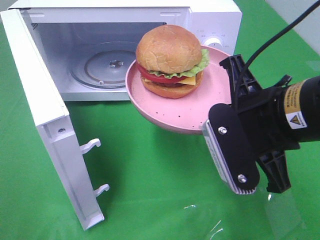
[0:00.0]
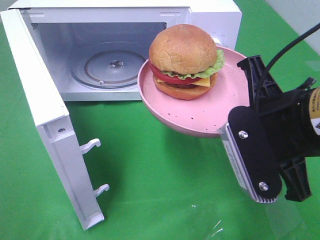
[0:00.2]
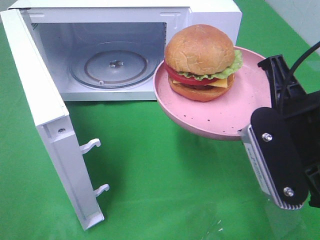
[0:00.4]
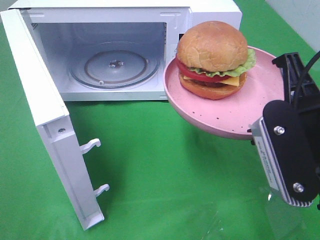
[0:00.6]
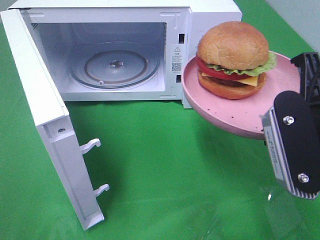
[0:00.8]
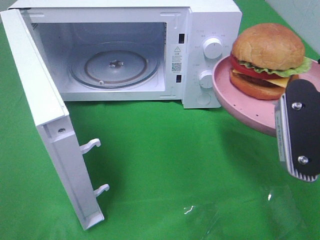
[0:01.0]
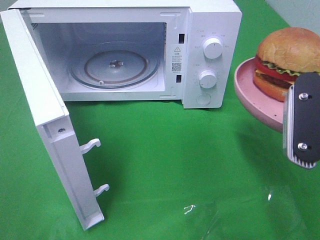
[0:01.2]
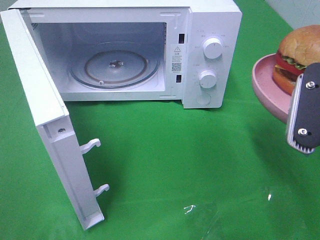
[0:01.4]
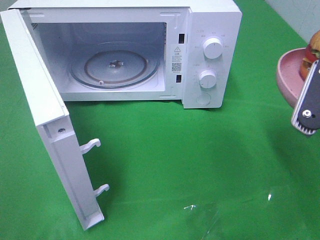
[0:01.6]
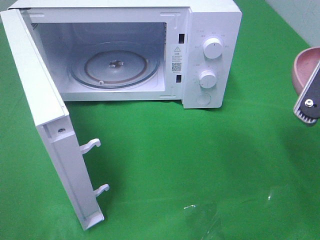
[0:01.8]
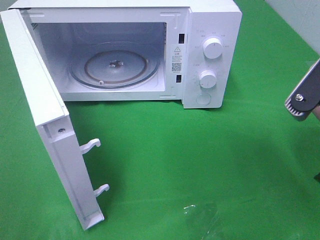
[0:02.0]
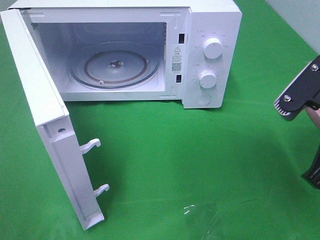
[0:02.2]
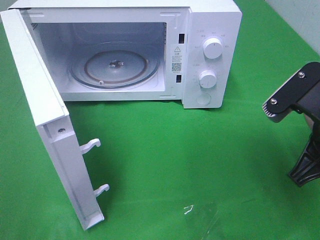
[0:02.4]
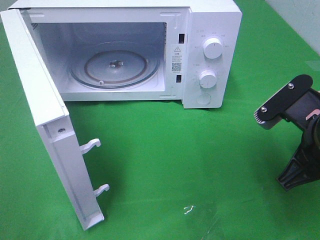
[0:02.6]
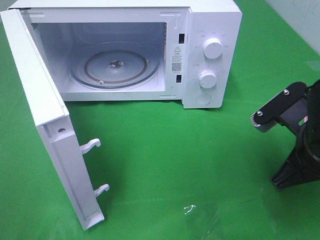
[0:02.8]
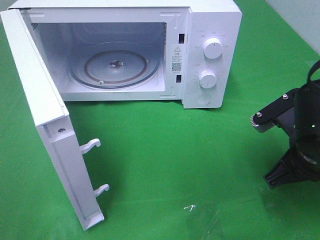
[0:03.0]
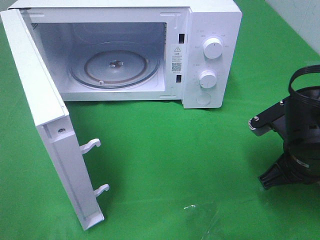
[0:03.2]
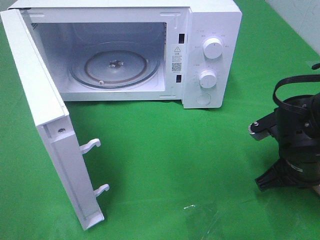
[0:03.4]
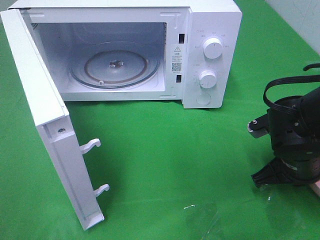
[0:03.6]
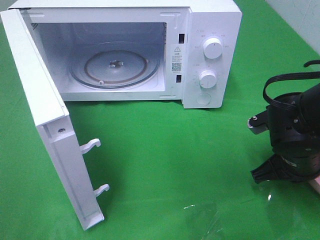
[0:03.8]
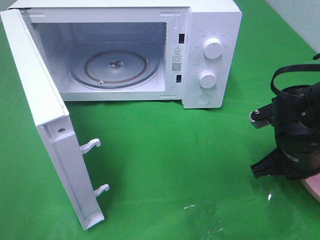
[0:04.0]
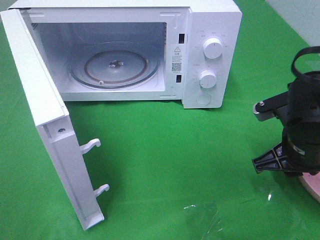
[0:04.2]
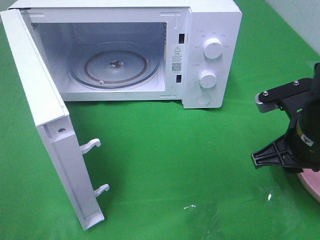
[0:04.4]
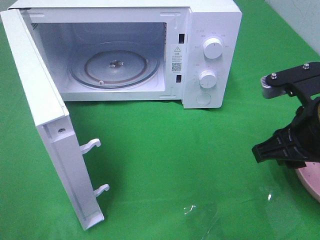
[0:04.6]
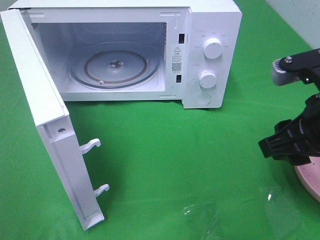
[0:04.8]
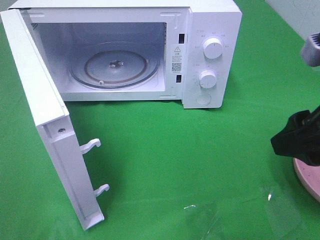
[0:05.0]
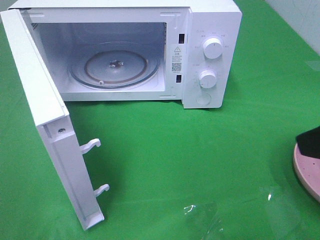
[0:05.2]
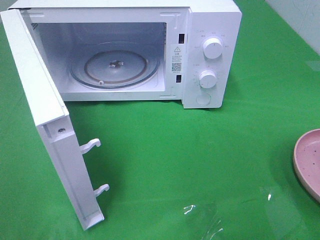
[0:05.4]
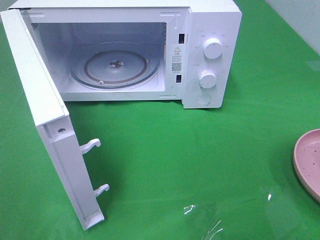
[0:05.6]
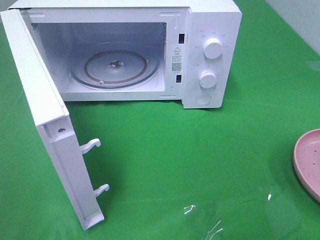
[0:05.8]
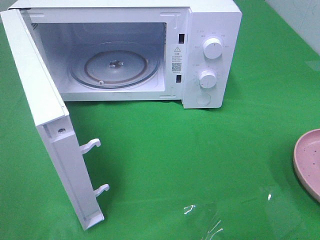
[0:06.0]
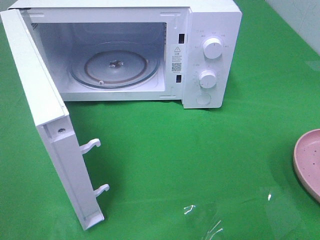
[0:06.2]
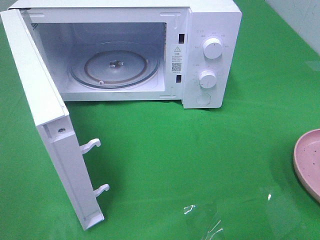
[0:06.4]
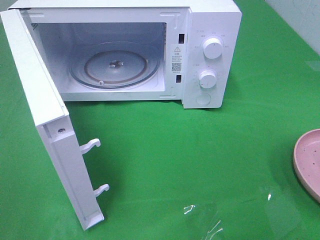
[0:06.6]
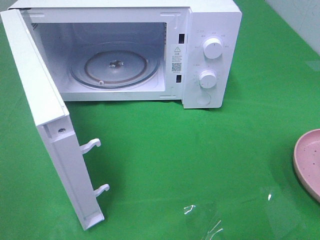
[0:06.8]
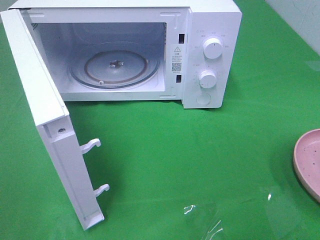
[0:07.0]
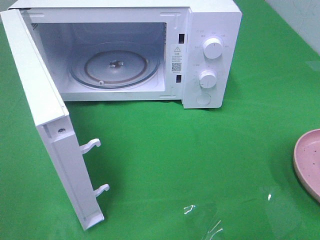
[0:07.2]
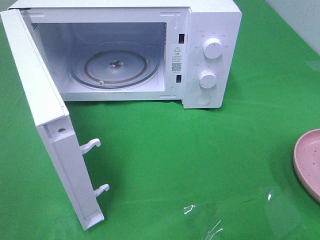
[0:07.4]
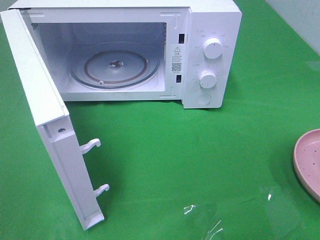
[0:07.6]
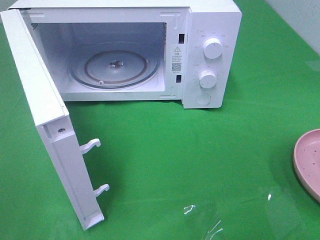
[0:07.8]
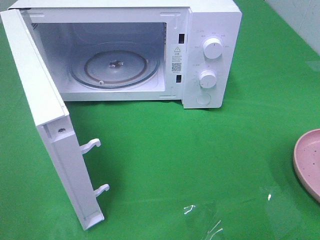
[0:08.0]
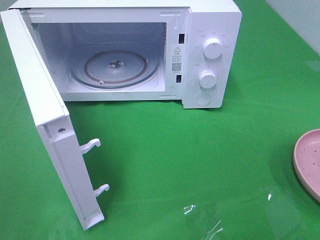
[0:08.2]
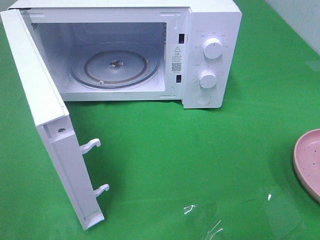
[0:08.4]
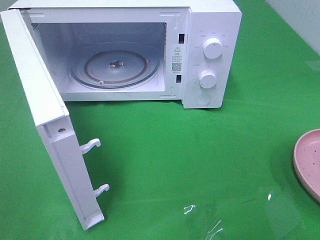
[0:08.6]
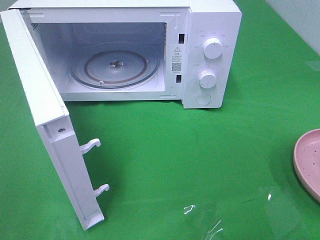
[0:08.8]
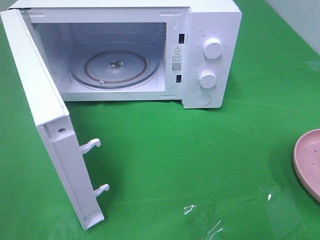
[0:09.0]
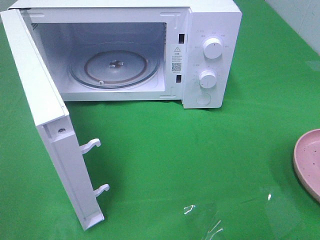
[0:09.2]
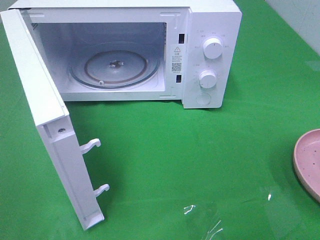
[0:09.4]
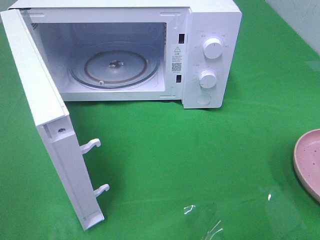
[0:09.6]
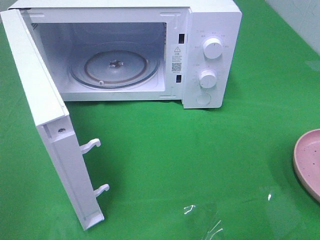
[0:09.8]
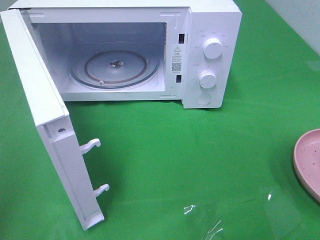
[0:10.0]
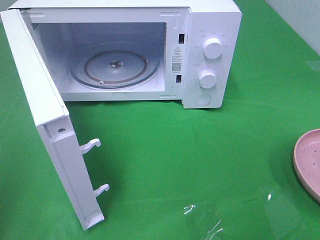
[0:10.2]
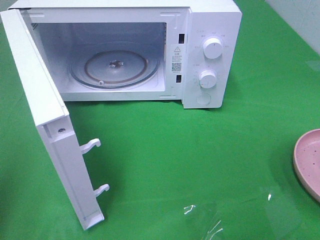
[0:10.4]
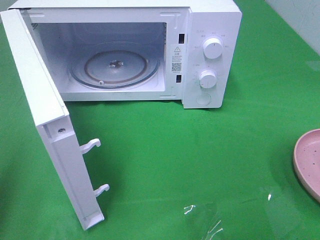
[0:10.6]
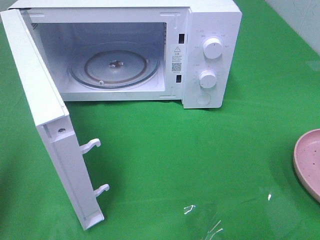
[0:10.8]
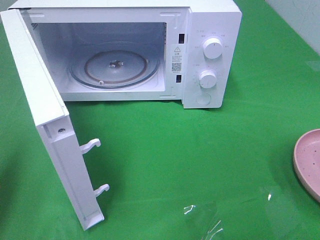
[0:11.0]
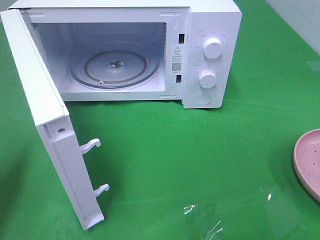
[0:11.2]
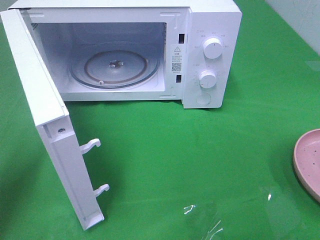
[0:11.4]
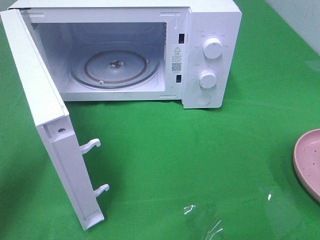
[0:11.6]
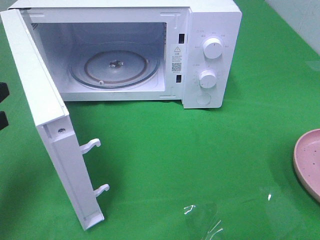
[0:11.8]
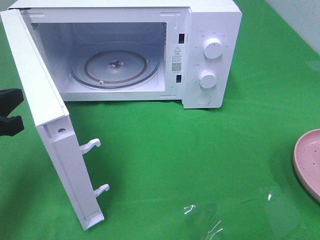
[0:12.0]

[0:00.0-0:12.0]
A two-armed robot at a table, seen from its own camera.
Task of the whole recording: Heat the burger.
Step, 0:00.0 to 0:04.6: Right hand: place the plate on the table.
0:00.0 to 0:01.6: The right gripper travels to the right by approximately 10 cm.
0:01.6 to 0:03.0: The right gripper is displaced downward and forward by approximately 10 cm.
0:03.0 to 0:04.4: The right gripper opens.
0:04.4 to 0:06.0: The right gripper shifts about 25 cm backward, upward and to the right.
0:07.6 to 0:09.0: Both grippers stay about where they are.
0:10.4 to 0:12.0: The left gripper is displaced forward, downward and to the right by approximately 15 cm.

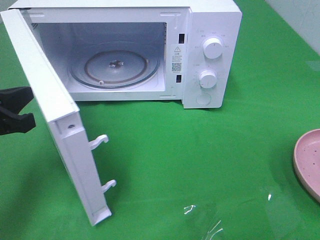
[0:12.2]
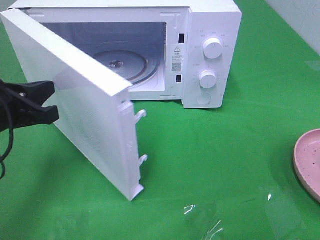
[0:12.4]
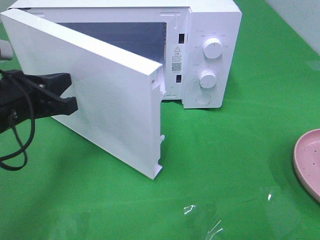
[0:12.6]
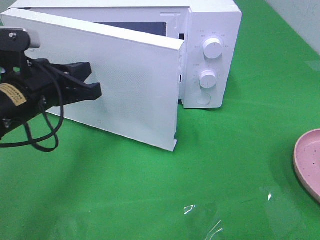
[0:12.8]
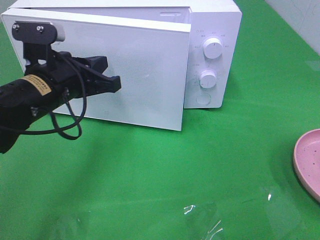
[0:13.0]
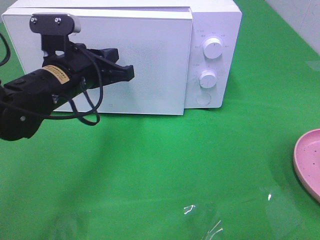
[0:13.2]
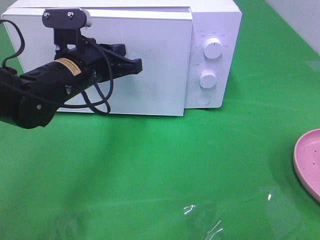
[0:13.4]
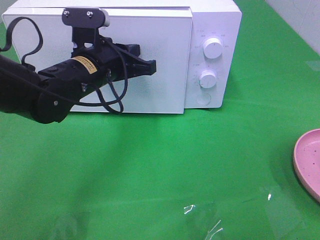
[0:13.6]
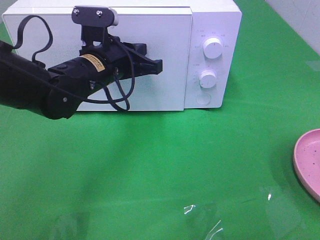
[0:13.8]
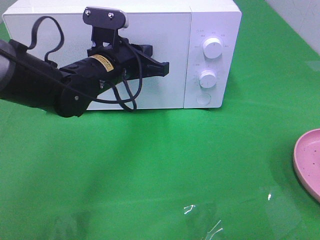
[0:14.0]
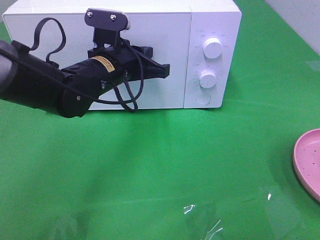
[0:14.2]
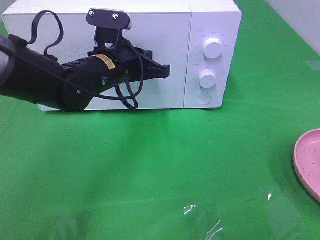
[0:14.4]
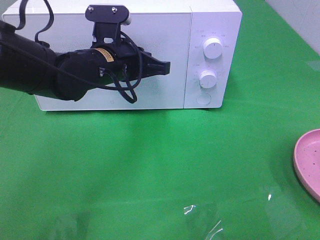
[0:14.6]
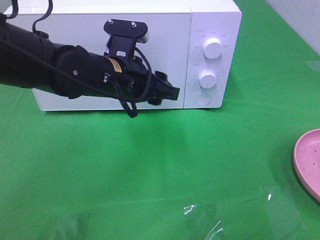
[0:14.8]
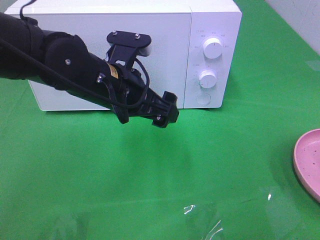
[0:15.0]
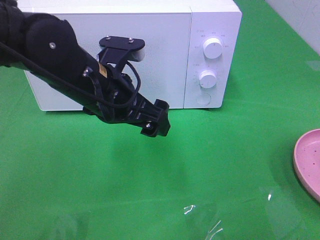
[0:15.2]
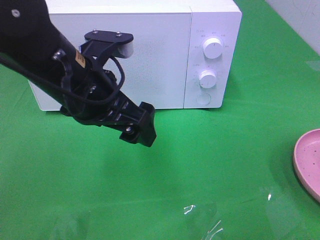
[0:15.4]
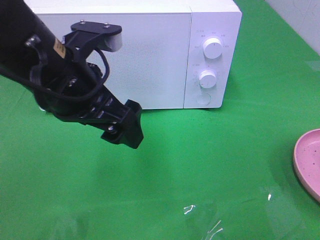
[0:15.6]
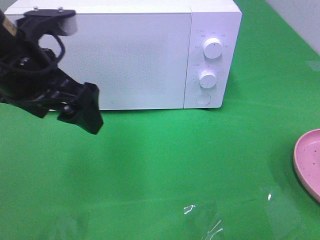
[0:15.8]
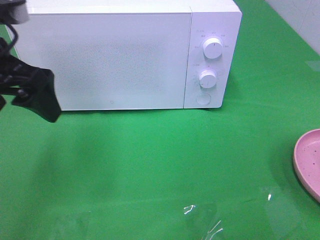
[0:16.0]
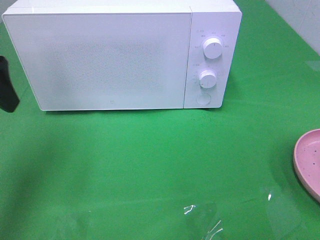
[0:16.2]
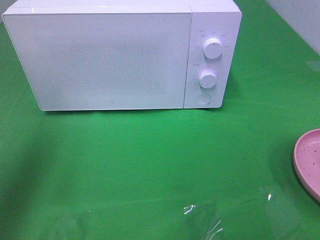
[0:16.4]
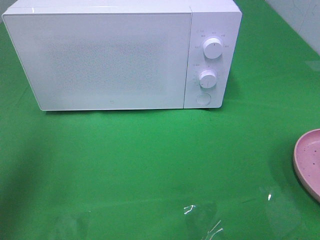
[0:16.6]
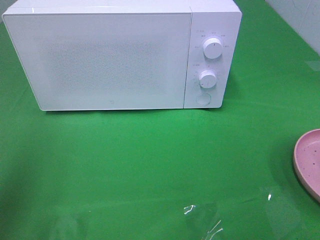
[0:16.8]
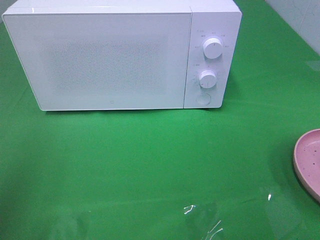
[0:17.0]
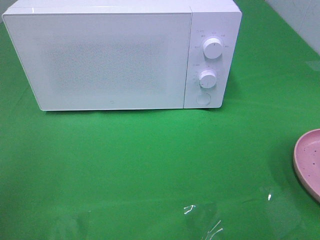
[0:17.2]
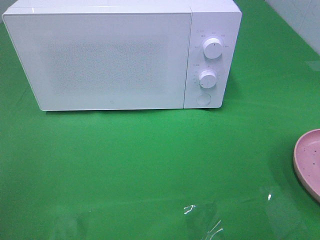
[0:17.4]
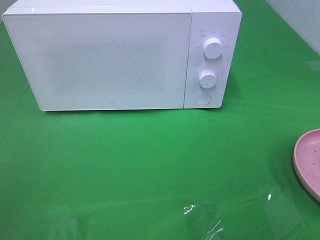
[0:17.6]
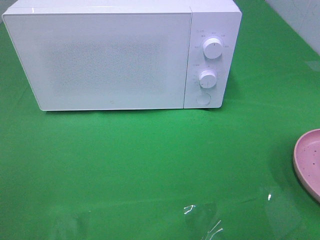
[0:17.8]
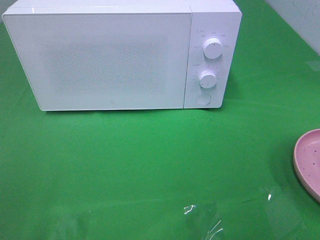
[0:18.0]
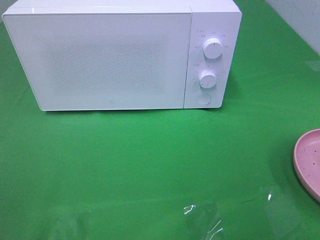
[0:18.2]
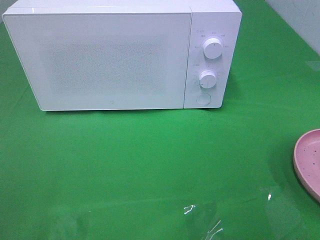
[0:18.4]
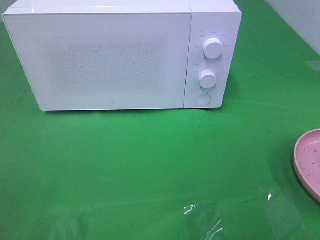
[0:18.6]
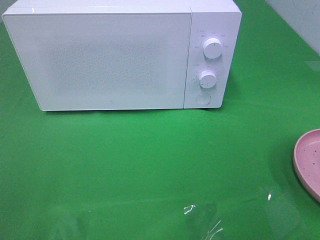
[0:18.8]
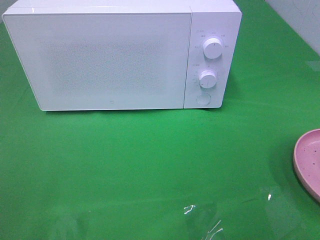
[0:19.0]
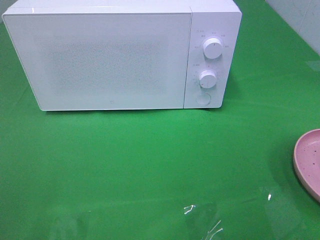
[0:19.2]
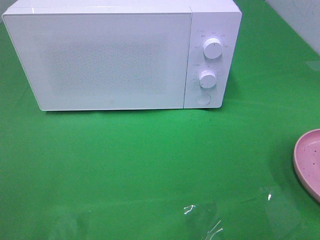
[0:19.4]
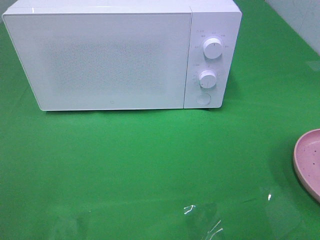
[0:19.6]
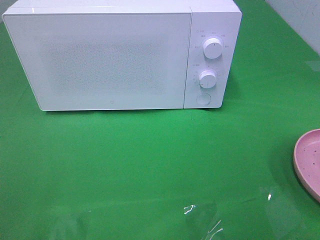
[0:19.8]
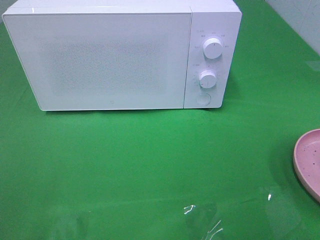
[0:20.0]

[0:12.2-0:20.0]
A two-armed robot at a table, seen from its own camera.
Task of the whole recording: Heat the burger.
Step, 0:12.2 to 0:14.8: Left hand: close the microwave door.
0:12.2 to 0:13.8: The left gripper is displaced to the right and forward by approximately 20 cm.
0:13.8 to 0:15.4: The left gripper travels backward and upward by some 10 cm, and opens up.
0:15.4 to 0:16.8: The left gripper shifts about 20 cm to the left and backward.
0:16.8 to 0:18.4: The left gripper travels backward by roughly 15 cm.
0:18.4 to 0:20.0: Neither gripper changes place.

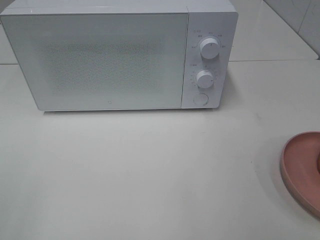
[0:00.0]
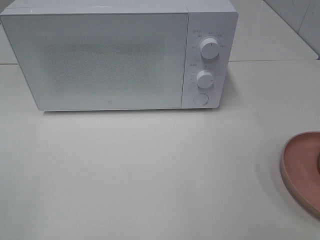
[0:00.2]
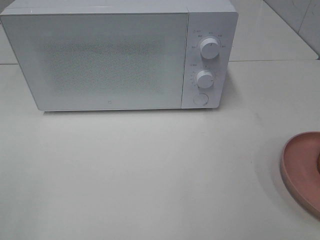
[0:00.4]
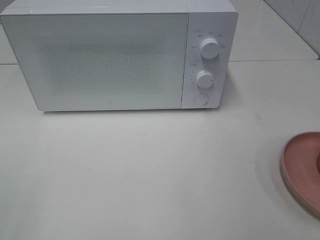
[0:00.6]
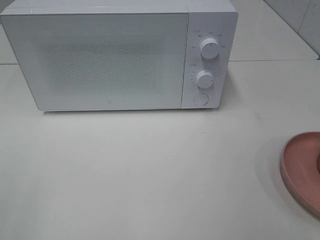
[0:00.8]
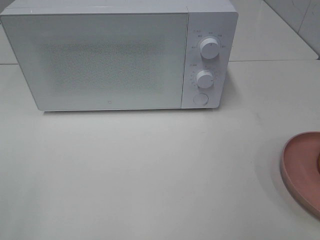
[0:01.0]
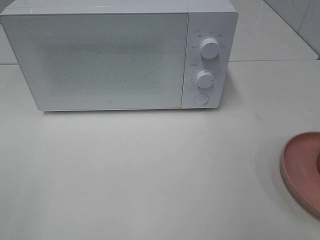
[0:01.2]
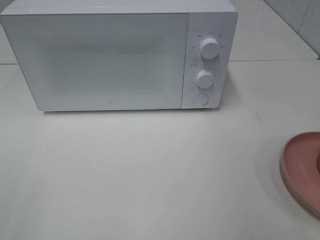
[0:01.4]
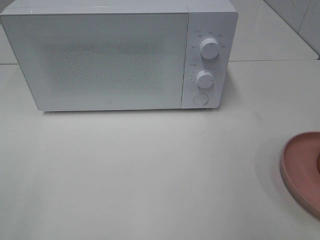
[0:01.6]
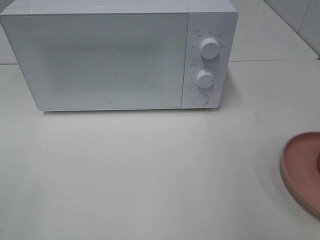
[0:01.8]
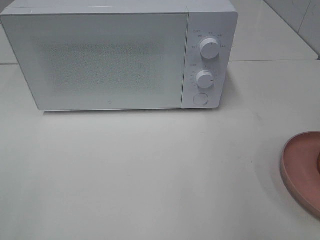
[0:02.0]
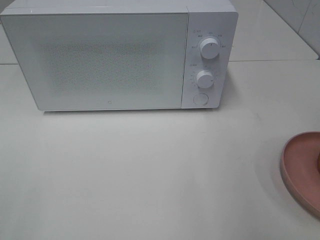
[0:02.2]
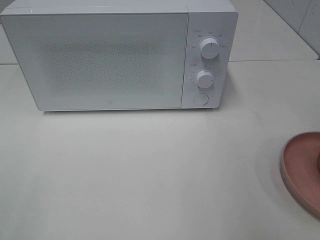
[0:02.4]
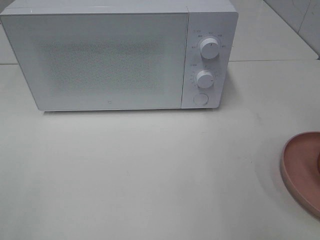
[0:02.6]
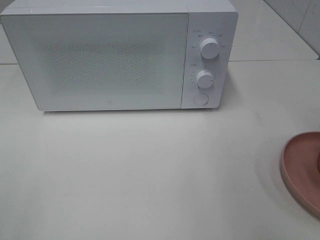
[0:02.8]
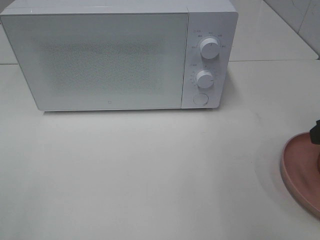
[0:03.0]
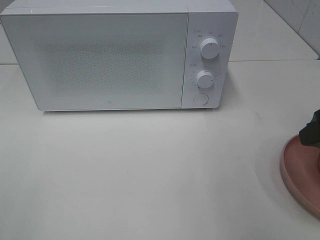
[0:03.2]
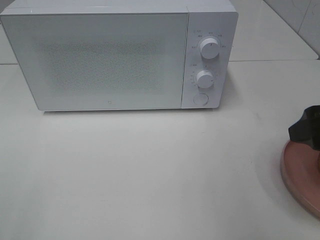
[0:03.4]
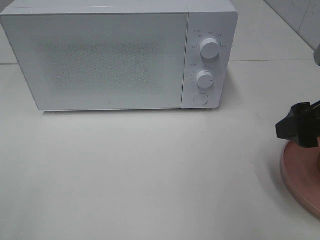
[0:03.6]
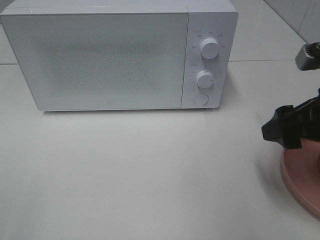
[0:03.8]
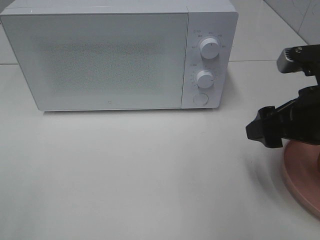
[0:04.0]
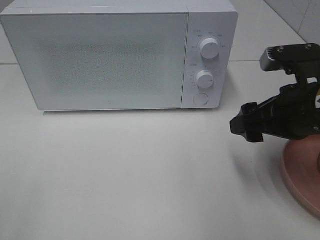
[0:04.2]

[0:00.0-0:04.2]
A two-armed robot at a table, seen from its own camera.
Task of the whole recording: Heat the burger.
0:02.8 to 0:04.2: The right gripper shifts approximately 10 cm to the left.
